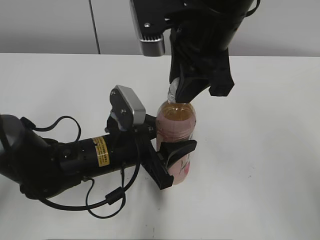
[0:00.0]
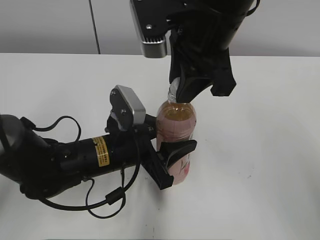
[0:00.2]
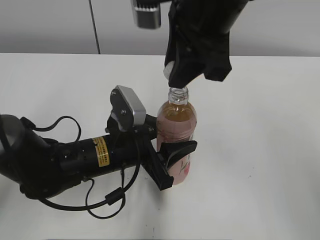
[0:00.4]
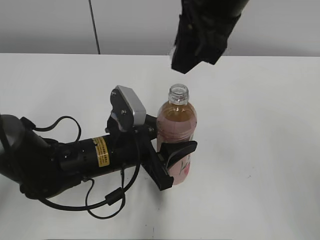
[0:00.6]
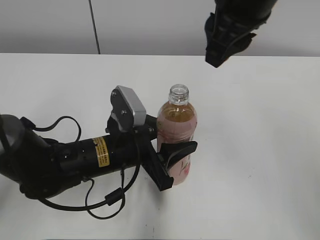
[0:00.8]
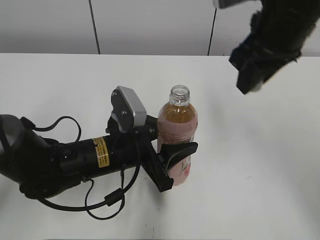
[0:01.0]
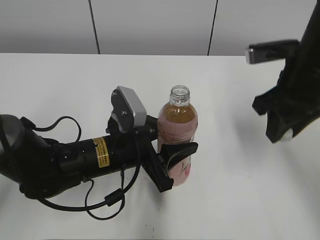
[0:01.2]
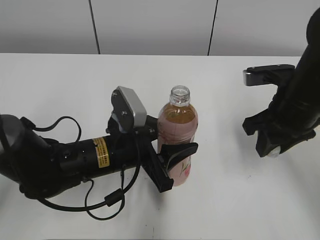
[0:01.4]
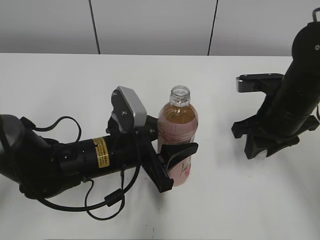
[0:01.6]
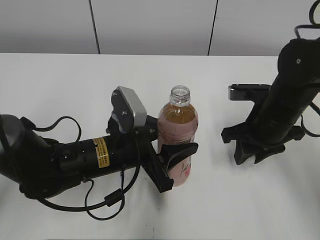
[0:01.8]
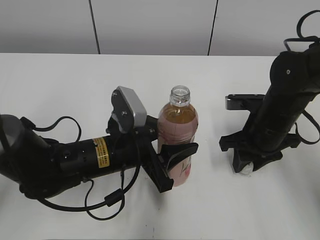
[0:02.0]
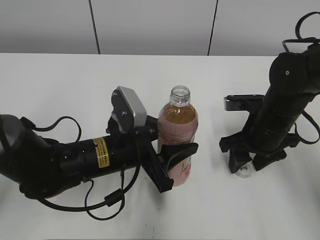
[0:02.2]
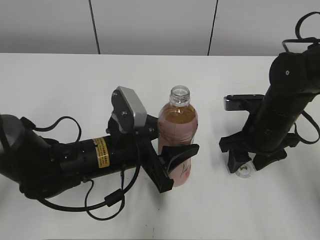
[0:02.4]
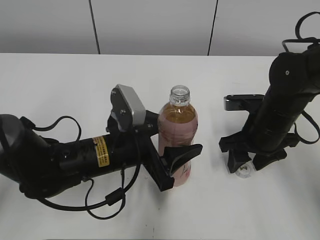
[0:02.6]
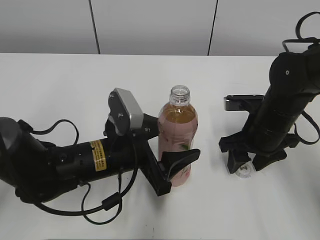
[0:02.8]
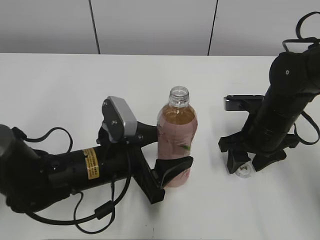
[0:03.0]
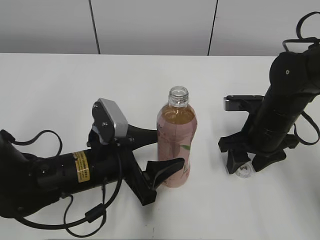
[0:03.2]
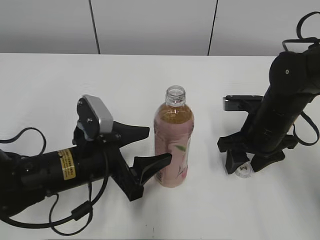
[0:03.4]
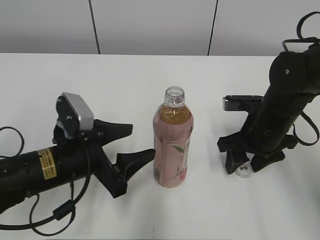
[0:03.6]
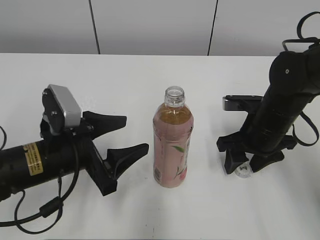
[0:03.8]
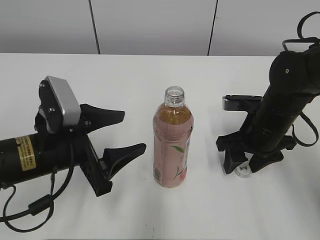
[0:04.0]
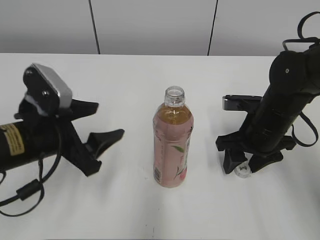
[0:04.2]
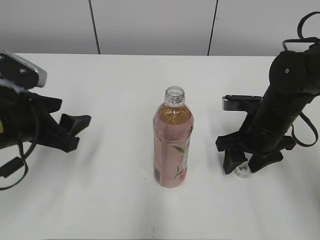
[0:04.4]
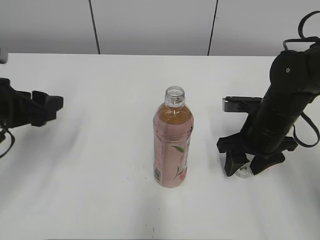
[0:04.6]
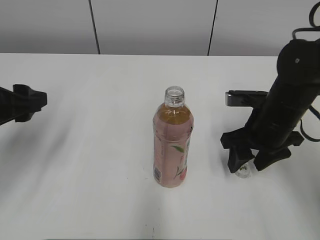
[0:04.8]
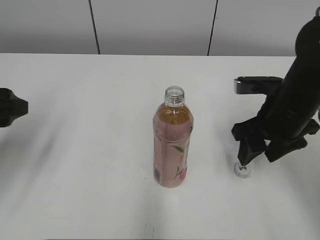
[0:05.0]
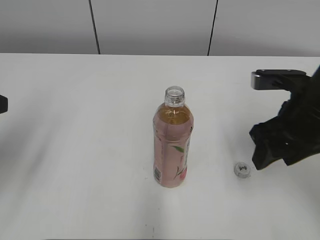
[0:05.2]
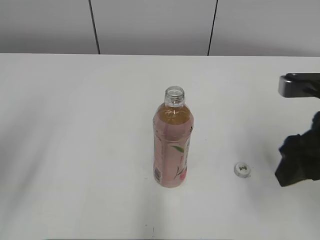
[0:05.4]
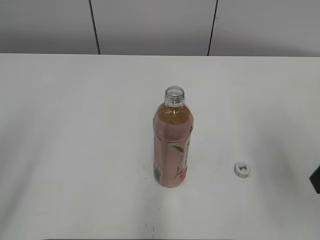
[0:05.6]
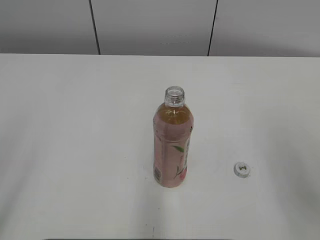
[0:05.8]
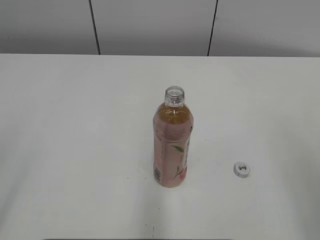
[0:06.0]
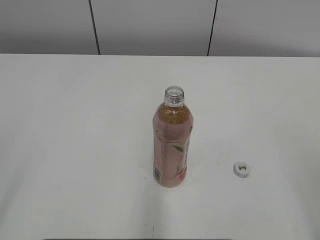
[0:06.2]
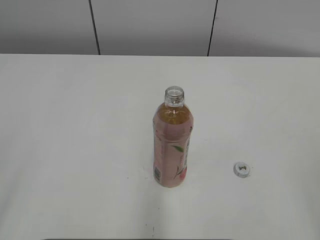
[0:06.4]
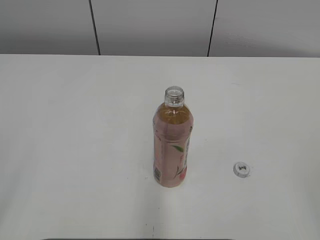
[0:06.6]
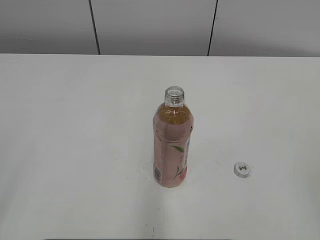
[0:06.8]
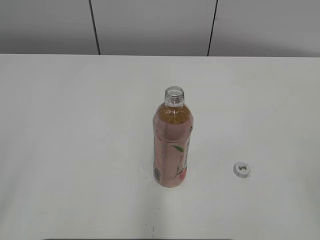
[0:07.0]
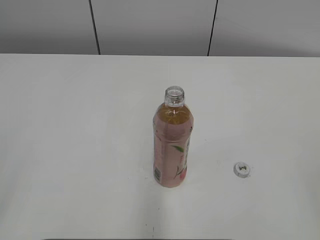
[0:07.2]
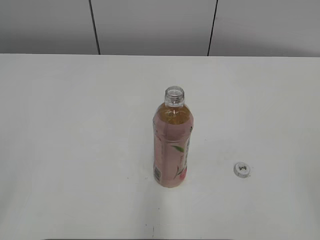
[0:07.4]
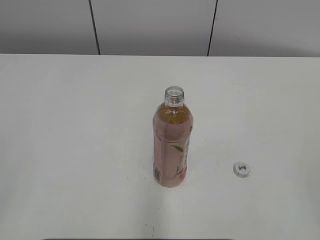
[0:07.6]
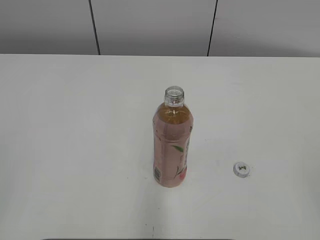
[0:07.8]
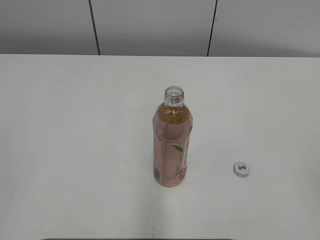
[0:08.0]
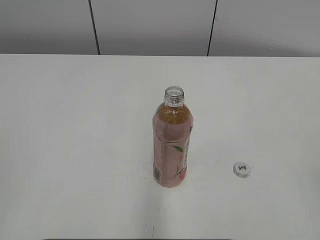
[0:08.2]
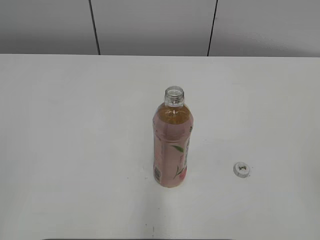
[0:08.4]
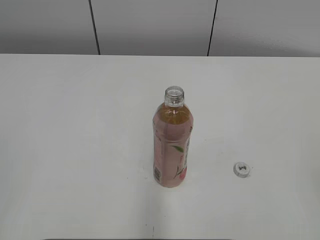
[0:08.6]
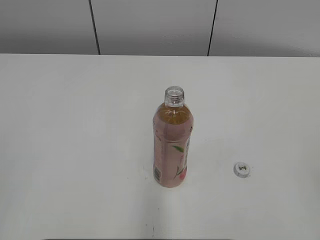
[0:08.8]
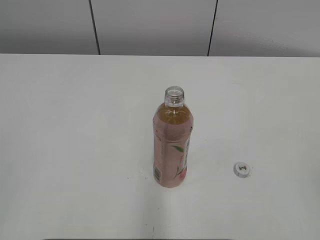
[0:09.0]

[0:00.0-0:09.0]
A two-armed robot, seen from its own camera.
Step, 0:00.4 to 0:02.0: Place the bottle cap on the right.
0:00.0 to 0:01.6: The right gripper moves downward and to the right, roughly 20 cm.
0:01.6 to 0:03.0: The left gripper opens its fingers; the right gripper shifts about 5 cm downward, and opens up.
0:03.0 to 0:04.4: The left gripper goes approximately 15 cm to the left and upward.
0:04.4 to 0:06.0: The right gripper shifts roughly 30 cm backward, upward and to the right; the left gripper moves backward, upward and to the left, approximately 25 cm.
